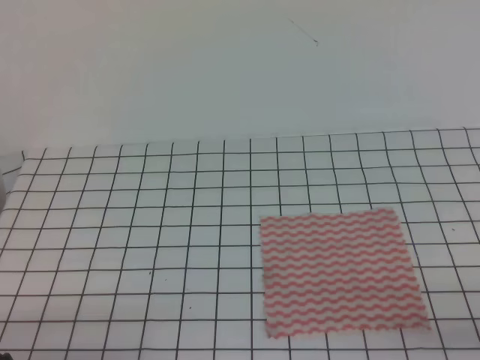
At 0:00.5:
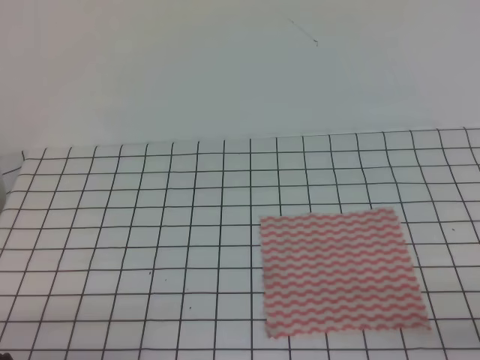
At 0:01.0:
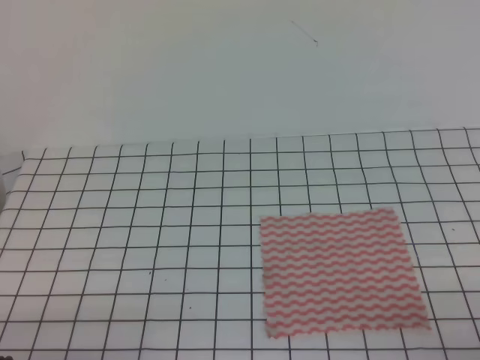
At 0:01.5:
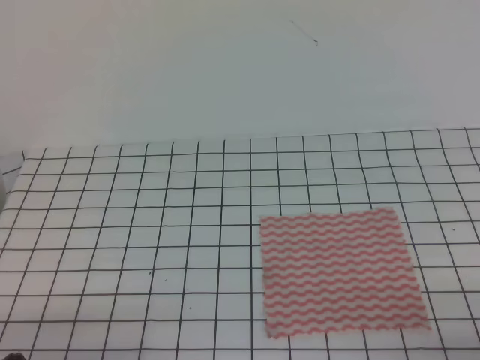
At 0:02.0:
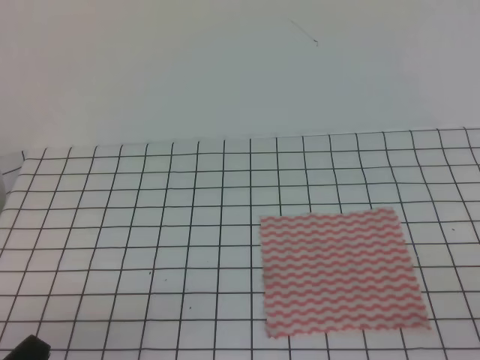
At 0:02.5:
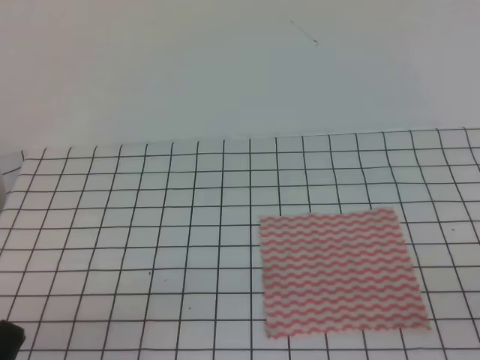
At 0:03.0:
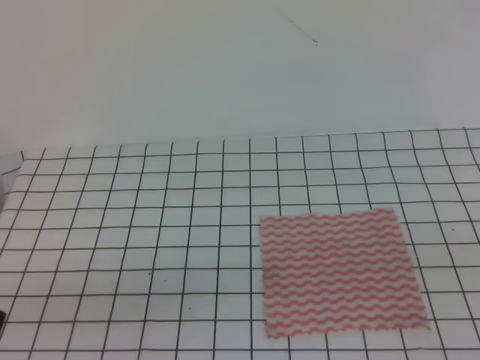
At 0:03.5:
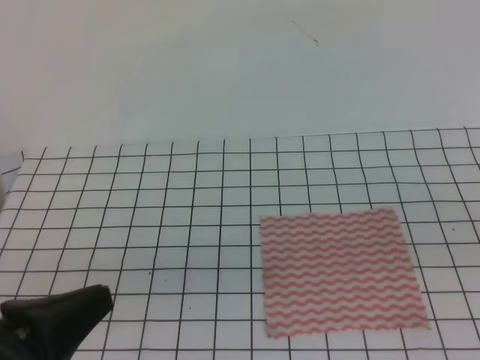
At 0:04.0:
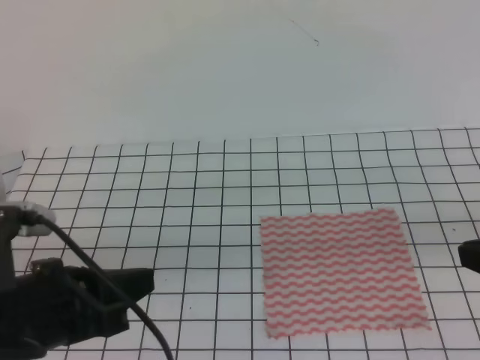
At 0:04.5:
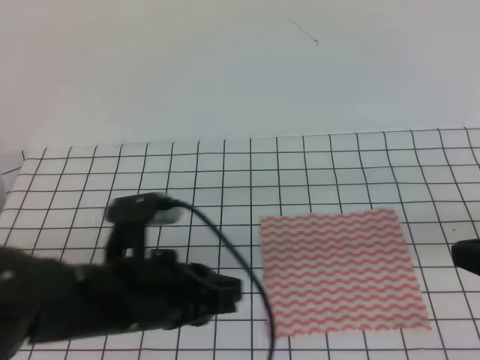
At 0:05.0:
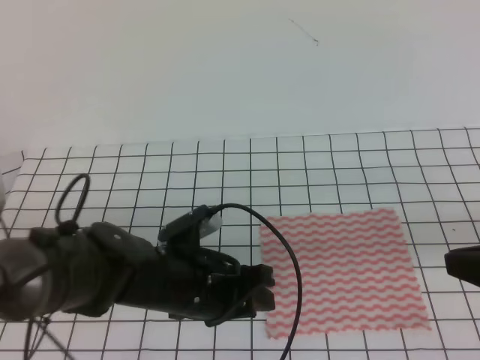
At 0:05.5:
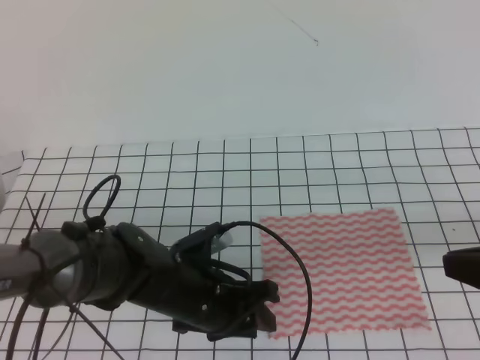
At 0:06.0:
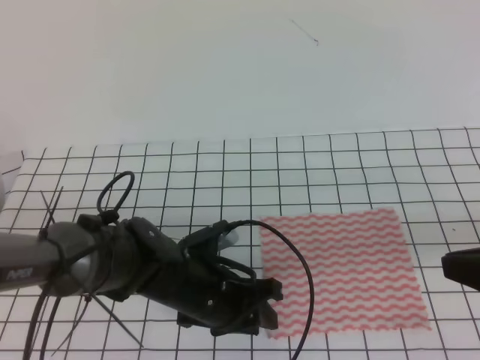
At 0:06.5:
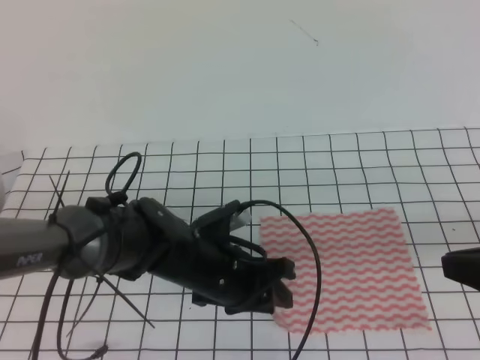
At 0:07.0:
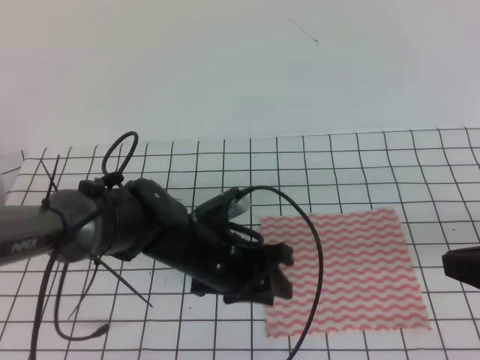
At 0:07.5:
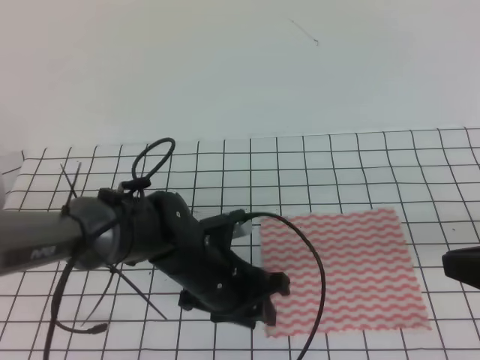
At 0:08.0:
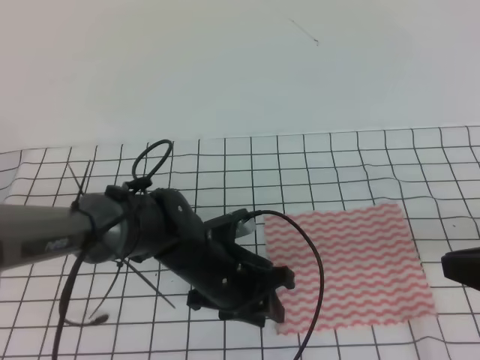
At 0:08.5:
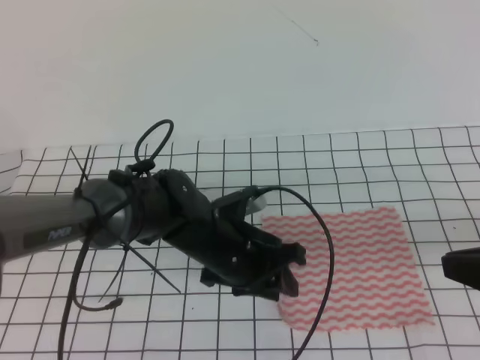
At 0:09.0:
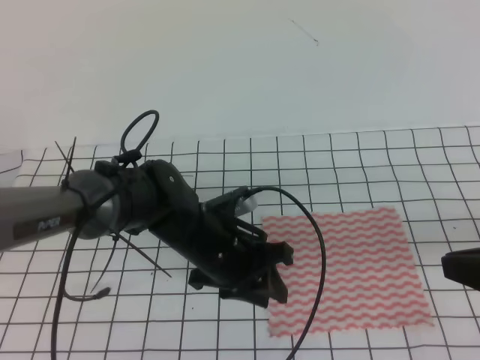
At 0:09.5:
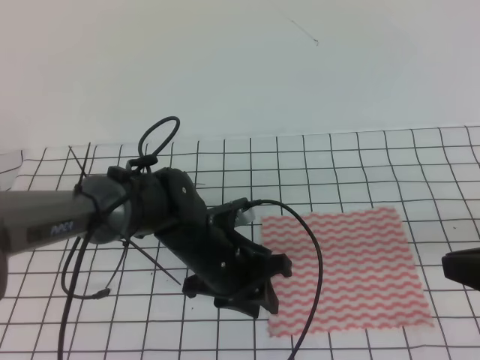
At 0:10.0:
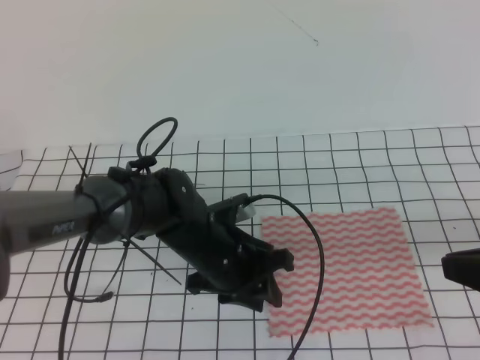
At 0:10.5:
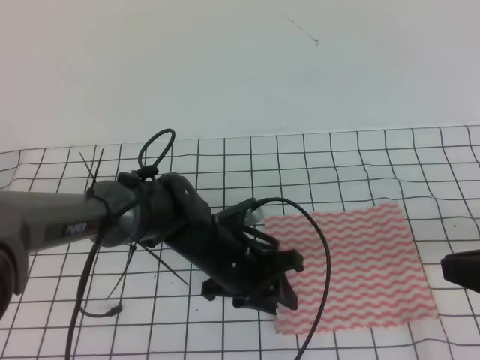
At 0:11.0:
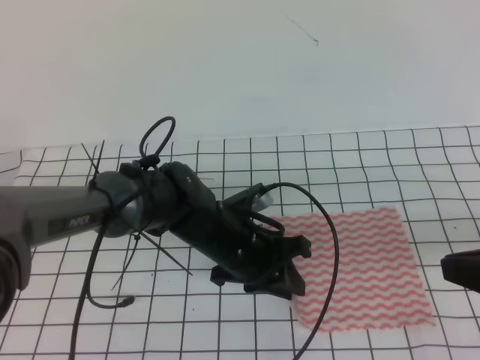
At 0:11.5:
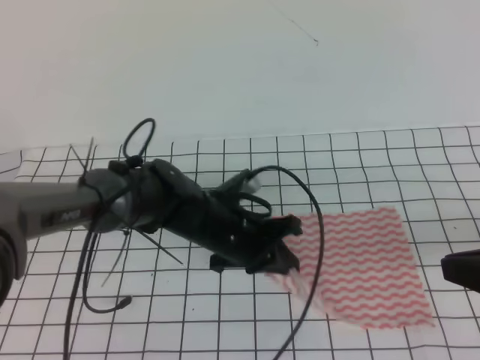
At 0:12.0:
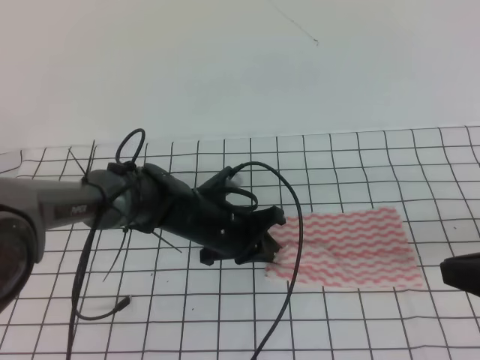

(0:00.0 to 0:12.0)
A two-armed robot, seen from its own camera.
0:02.0 - 0:04.0: The left gripper shifts some 15 cm forward, upward and to the right. Meanwhile the right gripper moves forward and upward, approximately 15 cm.
0:04.0 - 0:06.0: The left gripper shifts approximately 20 cm to the right, downward and forward, and opens its fingers.
0:08.0 - 0:10.0: The grippers stay close to where they were, moving slightly.
0:10.0 - 0:12.0: The left gripper travels forward by some 5 cm, and closes.

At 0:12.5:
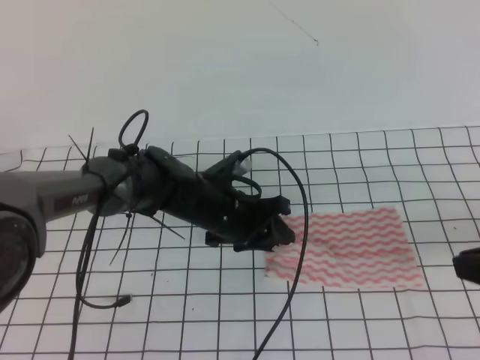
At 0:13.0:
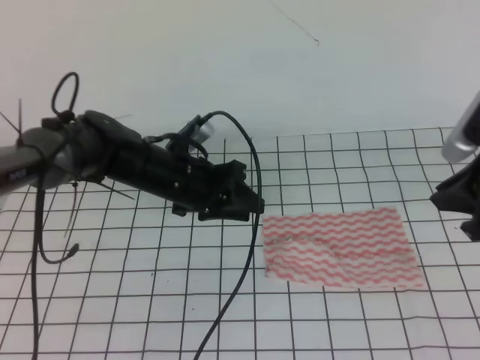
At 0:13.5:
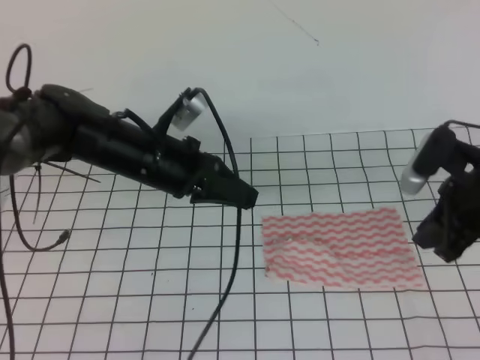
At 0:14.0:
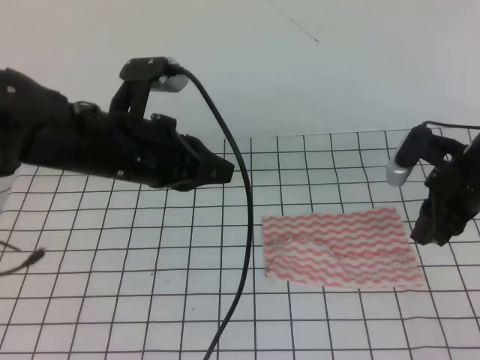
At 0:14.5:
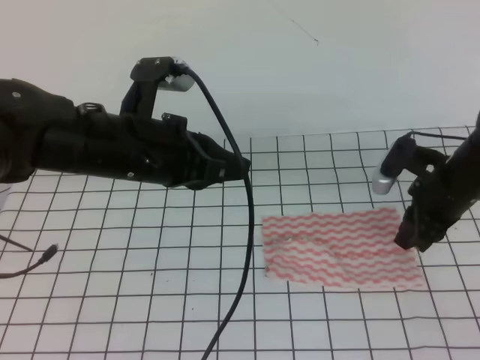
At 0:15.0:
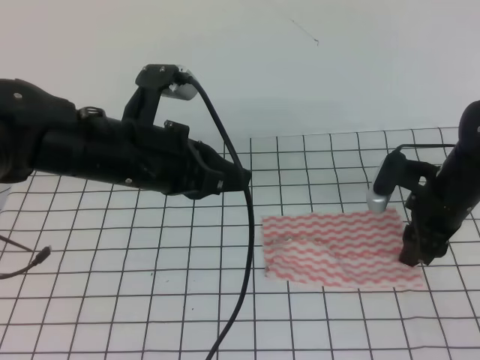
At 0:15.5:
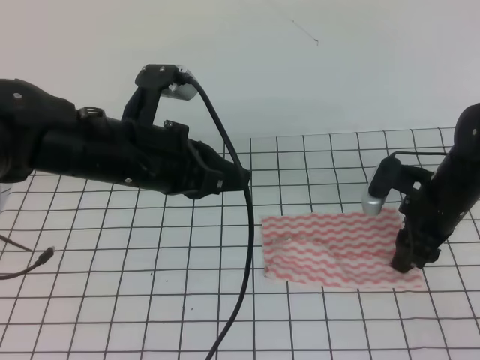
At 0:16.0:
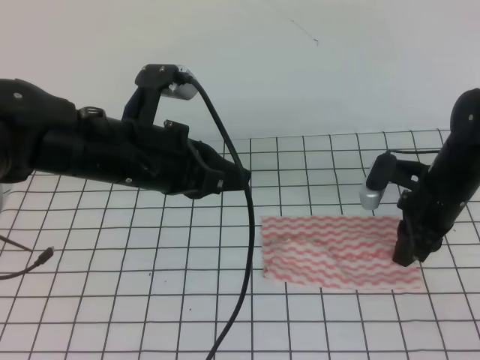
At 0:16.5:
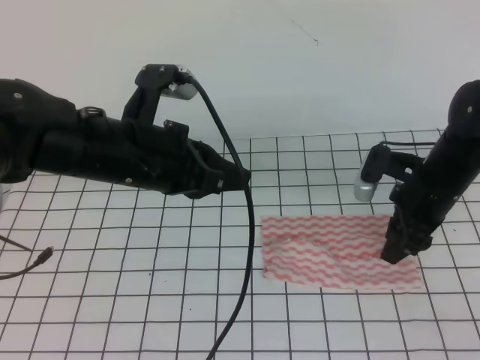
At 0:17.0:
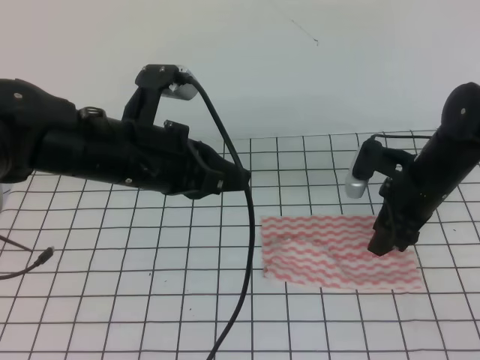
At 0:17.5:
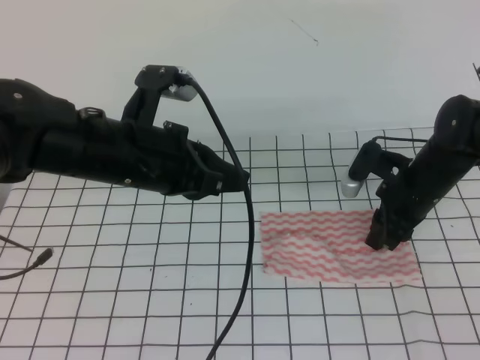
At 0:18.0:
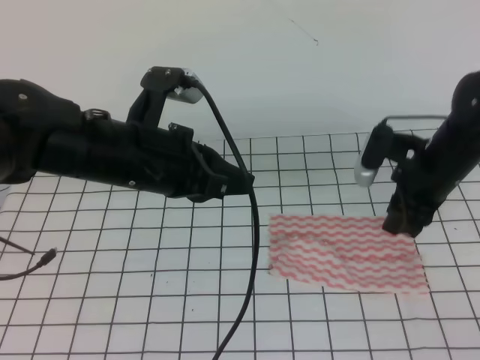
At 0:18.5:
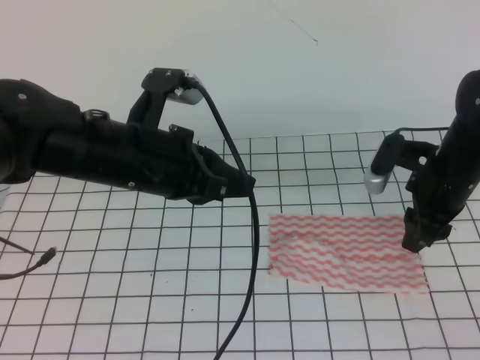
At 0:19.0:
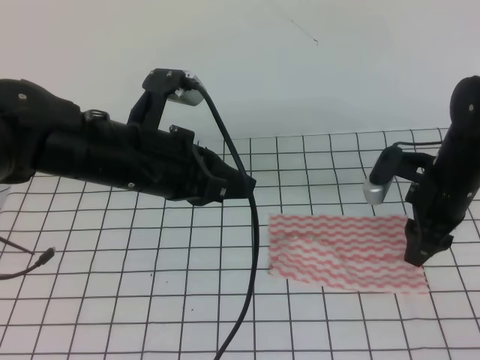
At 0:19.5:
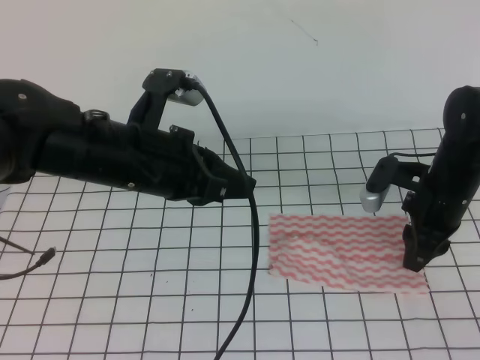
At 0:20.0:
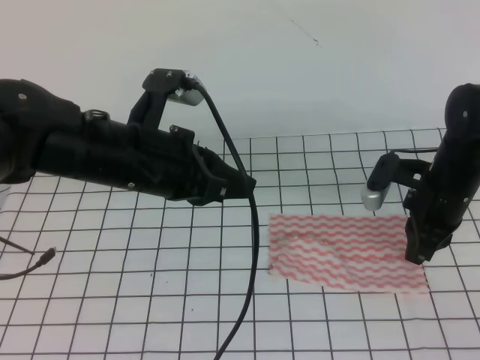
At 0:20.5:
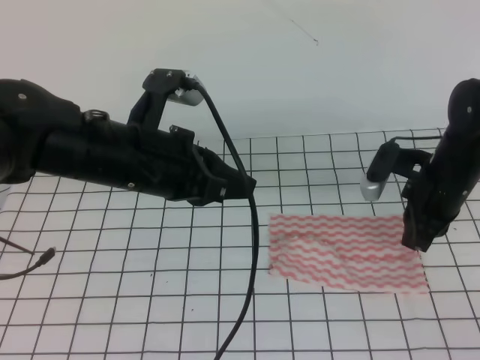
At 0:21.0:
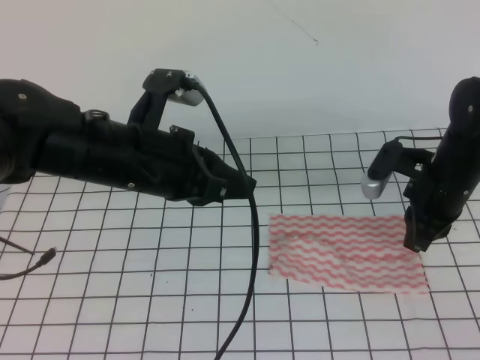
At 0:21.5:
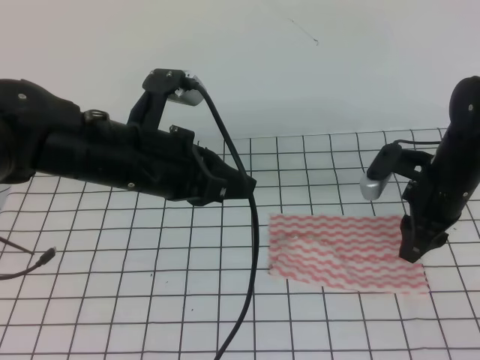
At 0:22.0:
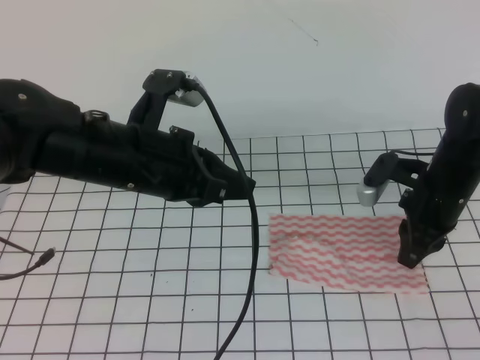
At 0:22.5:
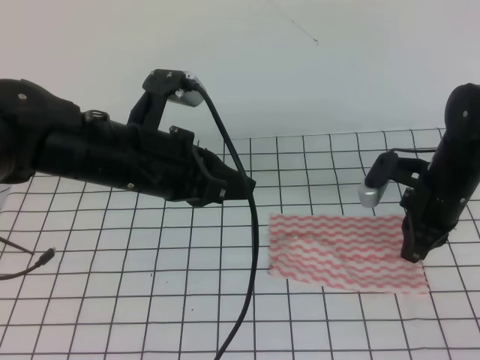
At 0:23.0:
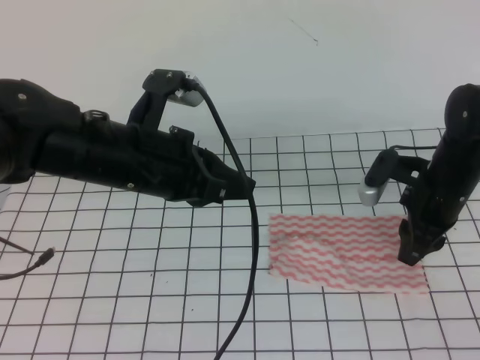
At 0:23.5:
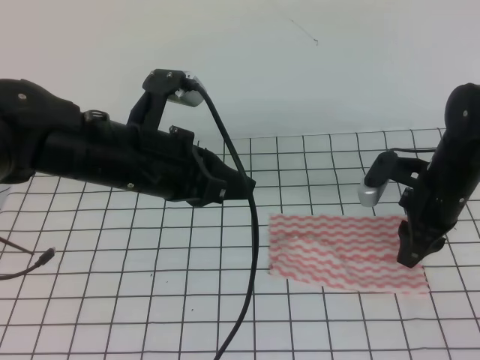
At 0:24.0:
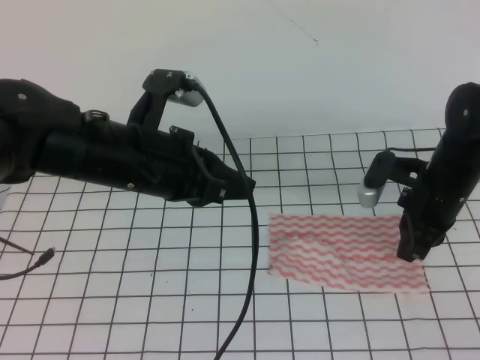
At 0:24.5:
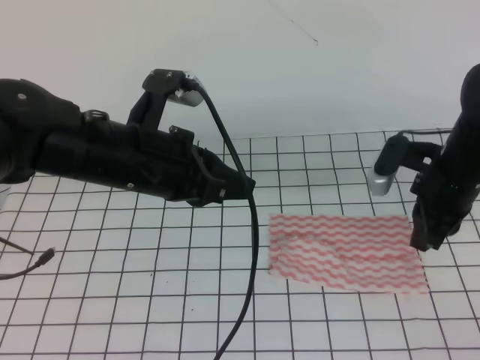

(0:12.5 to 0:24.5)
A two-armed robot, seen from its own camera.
0:12.5 - 0:14.5: The left gripper goes some 20 cm upward, to the left and backward, and closes up; the right gripper heads forward and downward, covering roughly 20 cm, and opens its fingers.
0:14.5 - 0:16.5: The right gripper opens its fingers.
0:16.5 - 0:18.5: The grippers move only a little.
0:18.5 - 0:20.5: The right gripper closes.
0:20.5 - 0:22.5: The right gripper opens, then closes again.
0:22.5 - 0:24.5: The right gripper opens, then closes once more.

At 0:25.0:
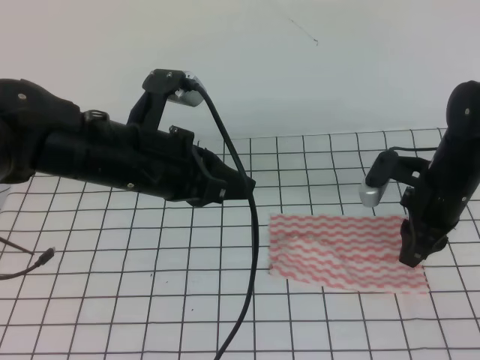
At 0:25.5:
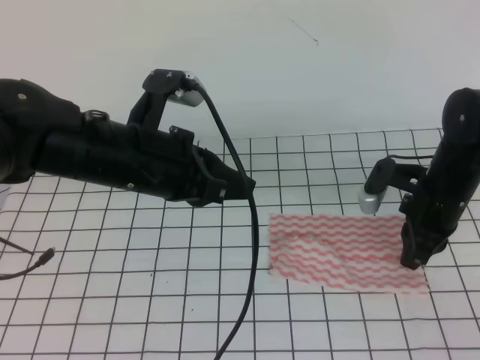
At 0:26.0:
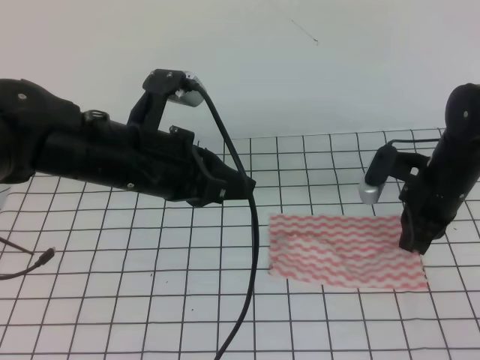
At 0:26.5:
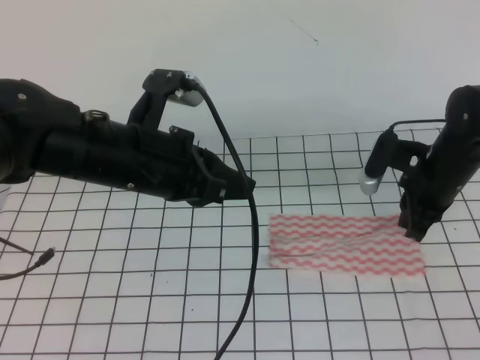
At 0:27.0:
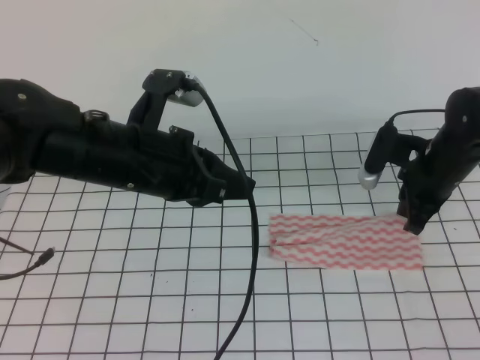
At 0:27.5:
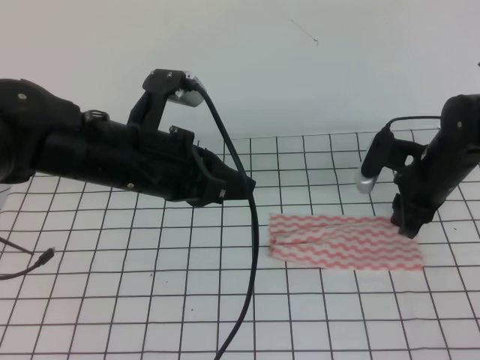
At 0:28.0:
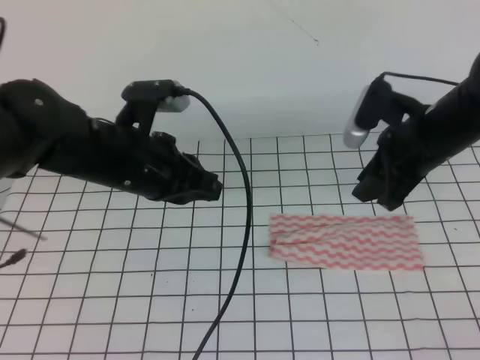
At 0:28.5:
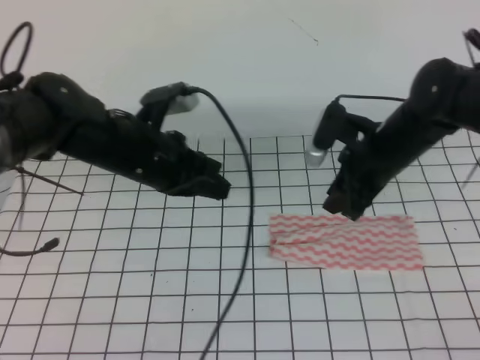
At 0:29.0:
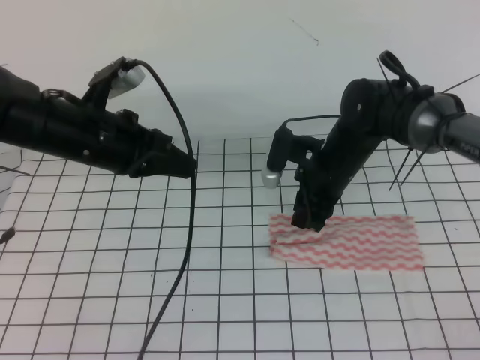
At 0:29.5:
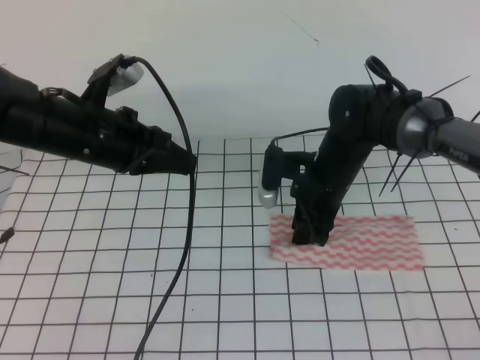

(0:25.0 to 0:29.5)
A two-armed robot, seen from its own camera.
0:25.0 - 0:27.0: The right gripper closes up.
0:27.0 - 0:29.5: The left gripper travels forward and to the left by some 10 cm. Meanwhile the right gripper travels to the left by roughly 15 cm, and opens up.
